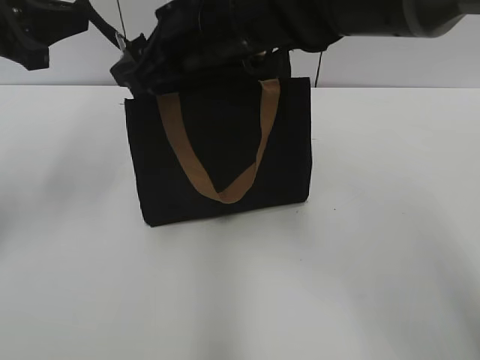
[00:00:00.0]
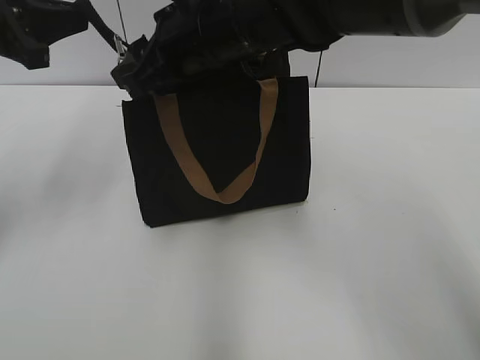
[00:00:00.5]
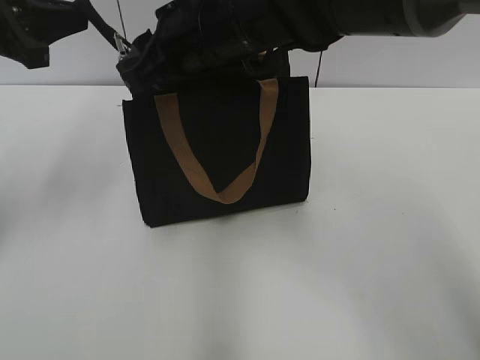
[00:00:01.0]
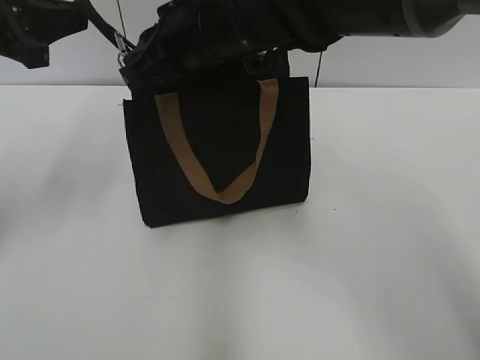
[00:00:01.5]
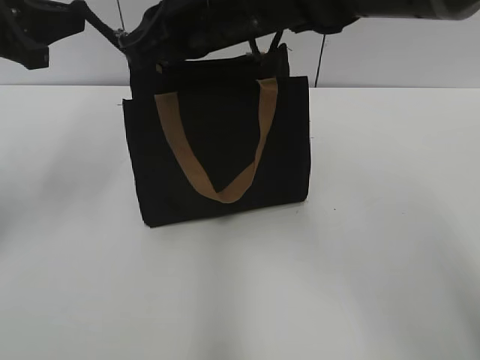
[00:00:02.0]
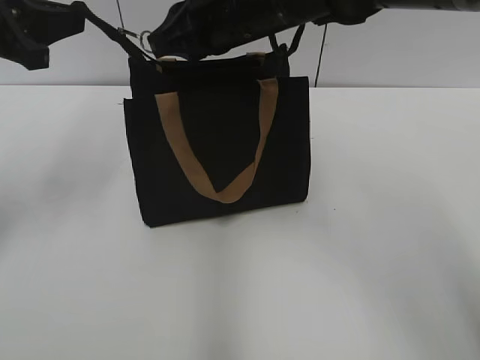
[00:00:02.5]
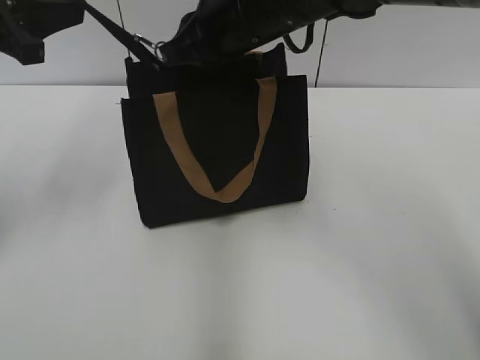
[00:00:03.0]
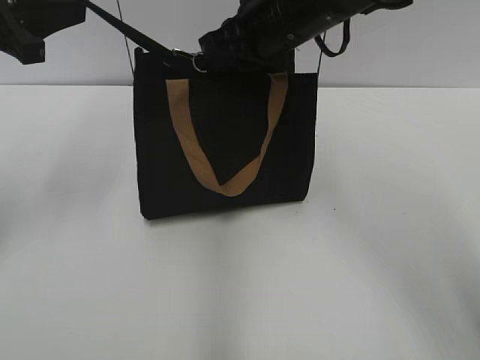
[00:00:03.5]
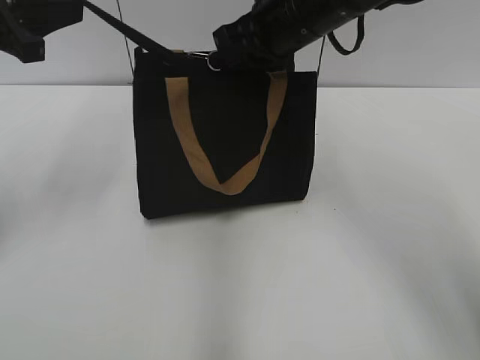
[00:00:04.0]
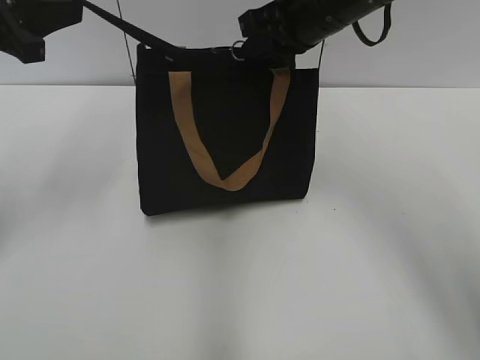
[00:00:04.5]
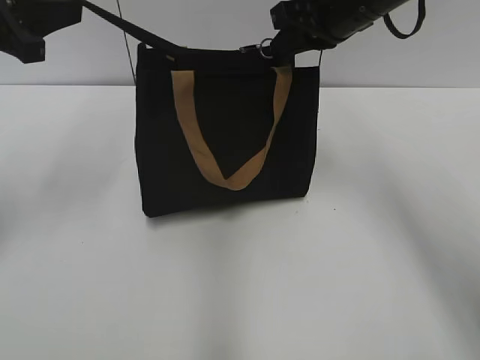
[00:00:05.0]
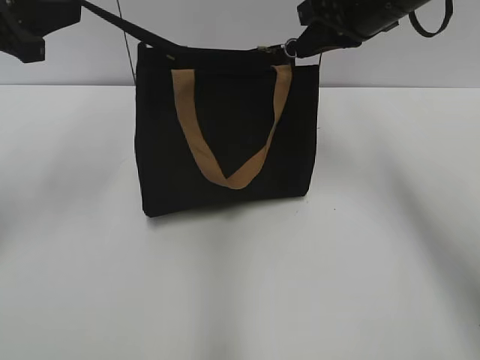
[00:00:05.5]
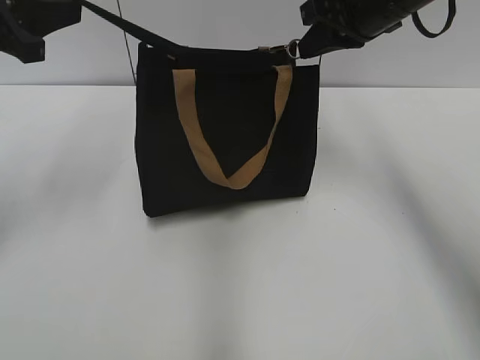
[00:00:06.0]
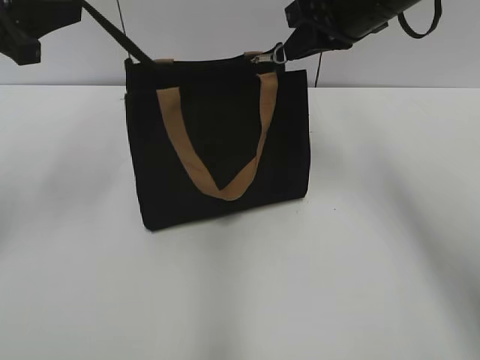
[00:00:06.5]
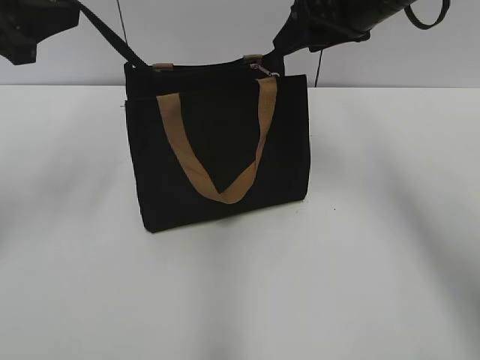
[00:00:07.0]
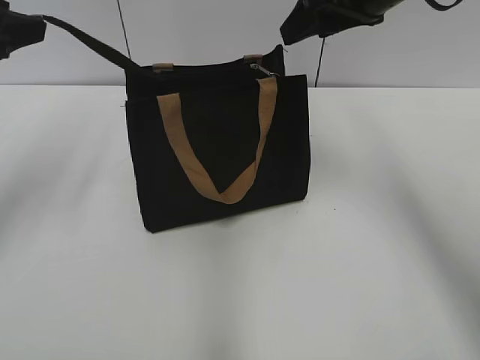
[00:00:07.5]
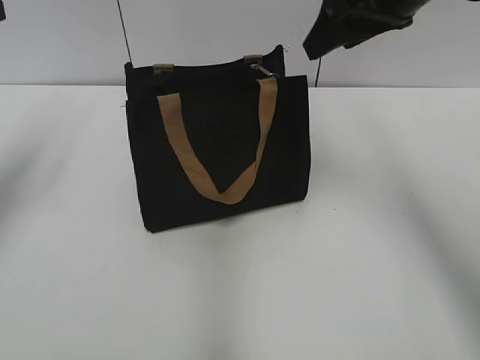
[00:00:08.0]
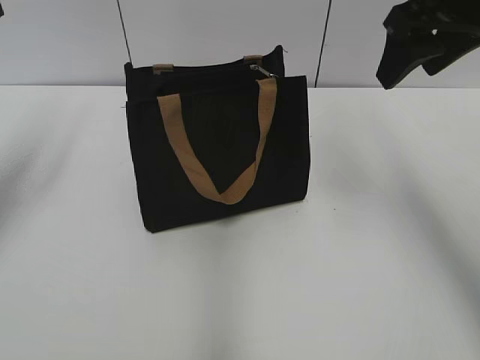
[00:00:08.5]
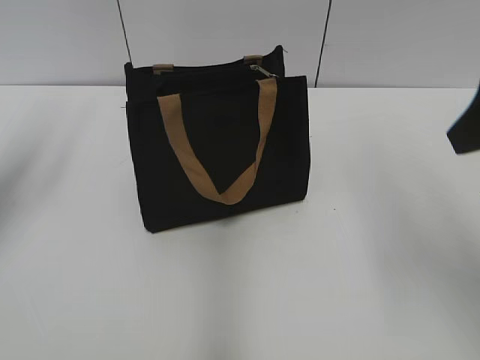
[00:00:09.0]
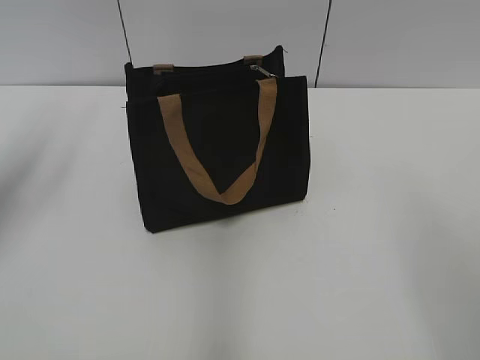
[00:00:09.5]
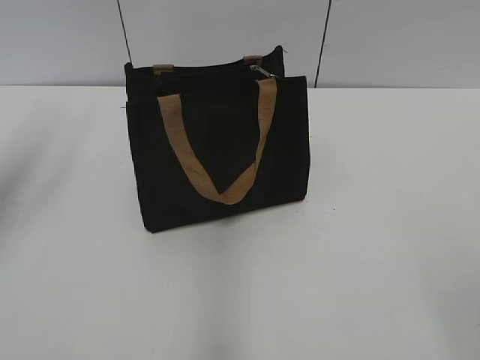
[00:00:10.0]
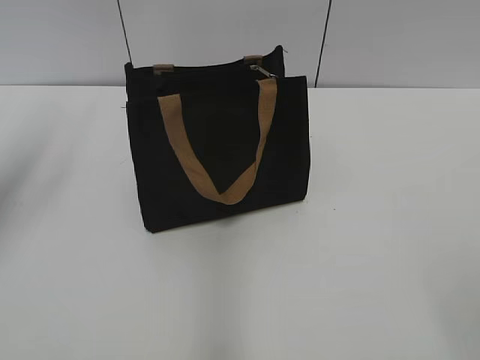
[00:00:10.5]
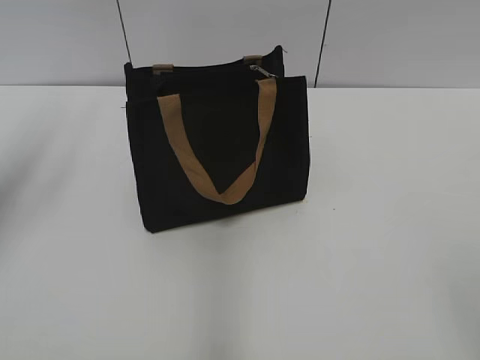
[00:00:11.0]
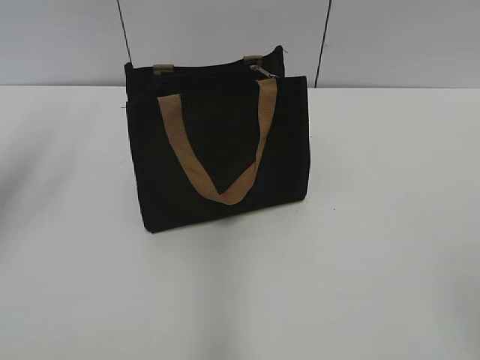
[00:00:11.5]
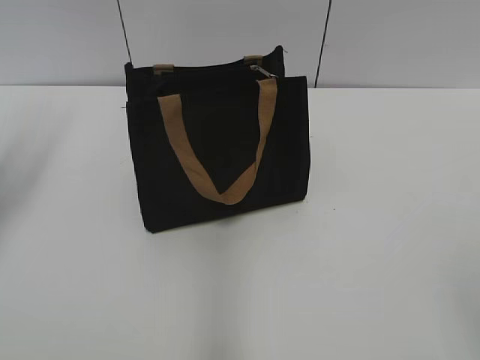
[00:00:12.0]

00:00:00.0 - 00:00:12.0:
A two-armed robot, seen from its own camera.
Step, 00:00:00.0 - 00:00:06.5: Zip up the bag with your right hand.
Step, 00:00:07.0 - 00:00:07.5: Grab the zipper with your left hand.
00:00:00.0 - 00:00:02.0: The right gripper closes up.
00:00:02.0 - 00:00:04.0: The right gripper travels to the right by approximately 10 cm.
00:00:04.0 - 00:00:06.0: The right gripper is displaced to the right by some 10 cm.
00:00:06.0 - 00:00:08.0: The left gripper opens; the right gripper shifts by approximately 5 cm, and opens.
00:00:08.0 - 00:00:10.0: The right gripper travels backward by roughly 35 cm.

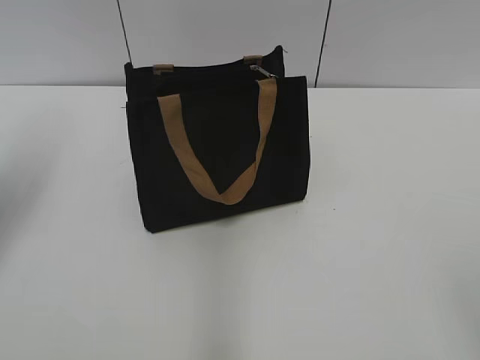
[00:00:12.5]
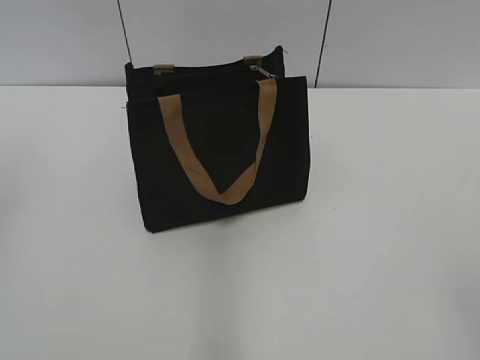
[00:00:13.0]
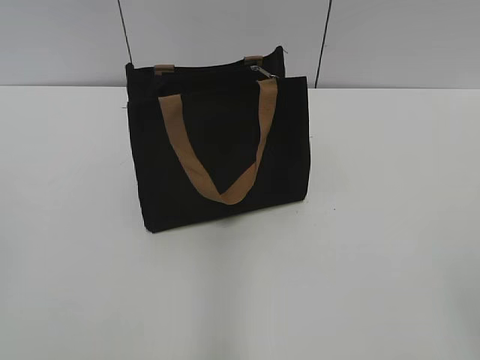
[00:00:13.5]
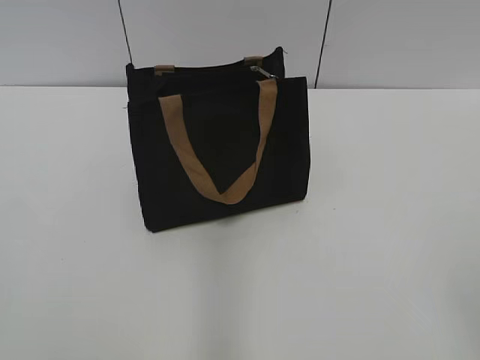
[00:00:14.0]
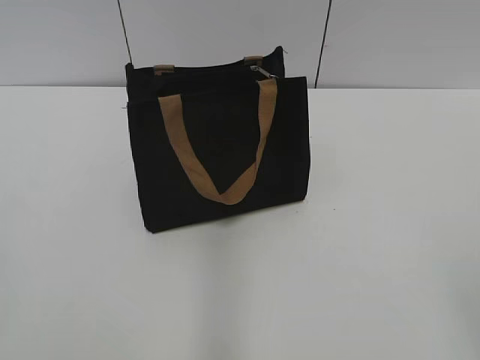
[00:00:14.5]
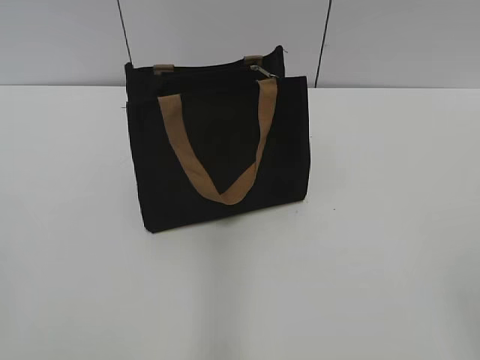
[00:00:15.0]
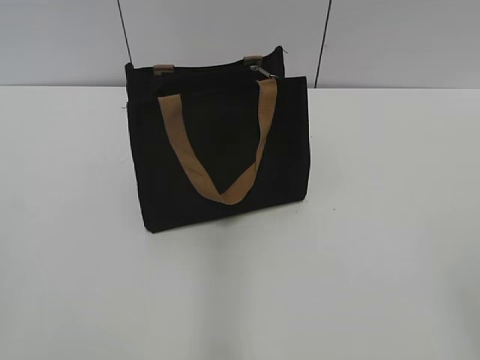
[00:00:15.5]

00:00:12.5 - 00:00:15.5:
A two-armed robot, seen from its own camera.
00:00:12.5 - 00:00:14.0: The left gripper heads backward, covering approximately 30 cm.

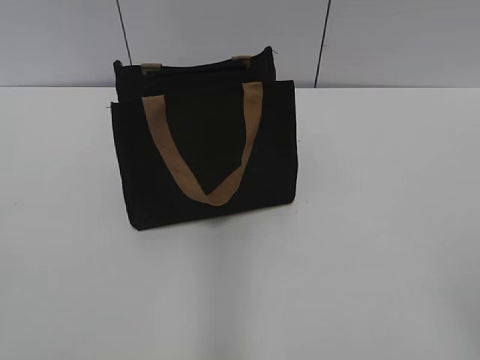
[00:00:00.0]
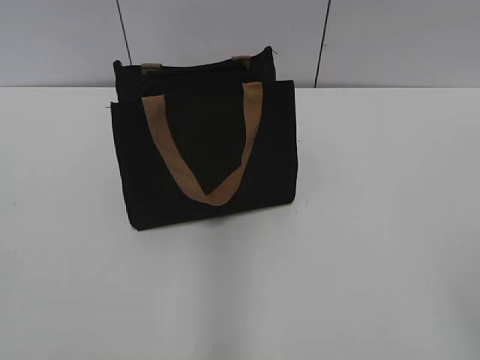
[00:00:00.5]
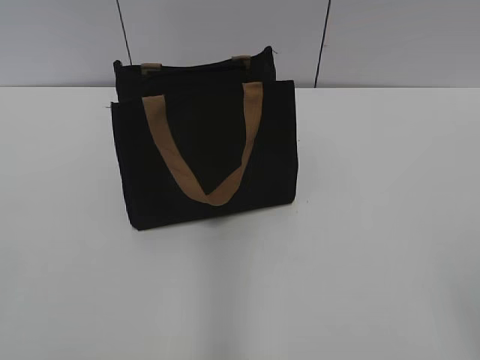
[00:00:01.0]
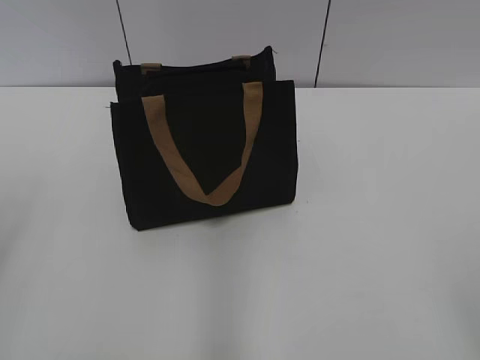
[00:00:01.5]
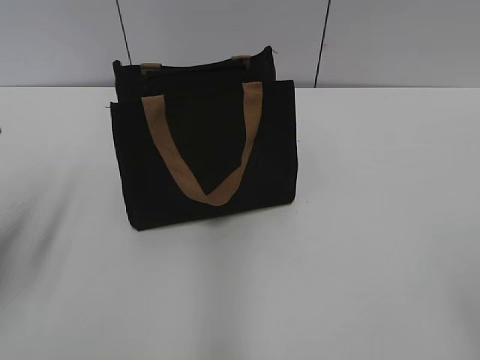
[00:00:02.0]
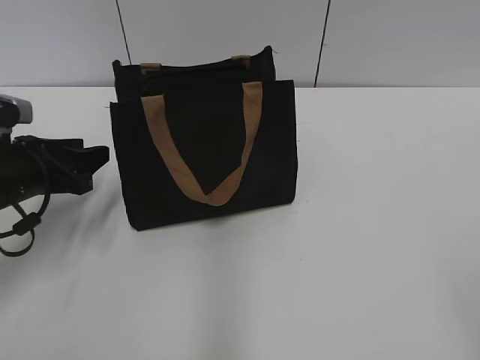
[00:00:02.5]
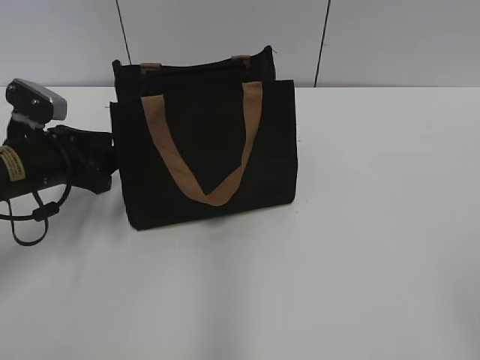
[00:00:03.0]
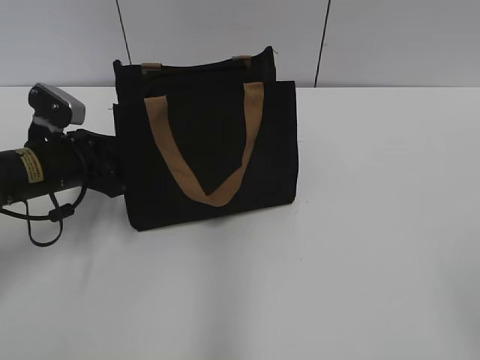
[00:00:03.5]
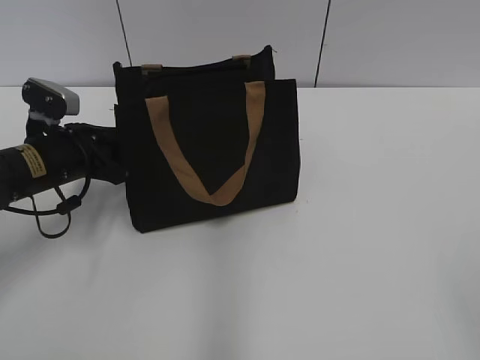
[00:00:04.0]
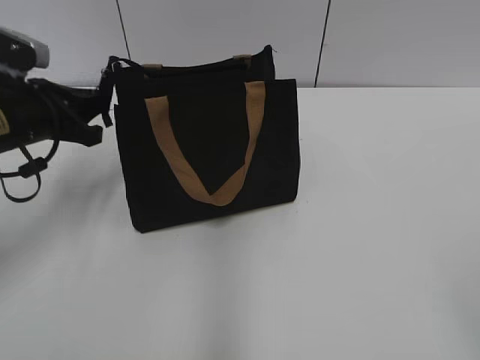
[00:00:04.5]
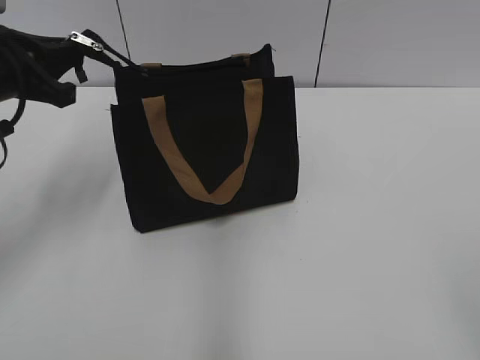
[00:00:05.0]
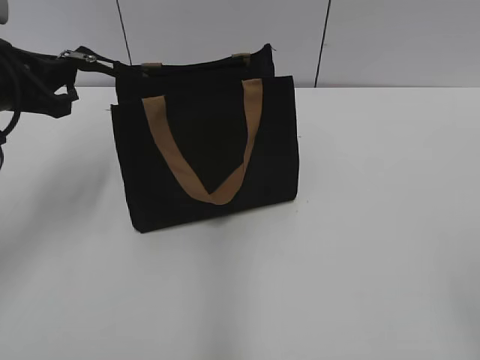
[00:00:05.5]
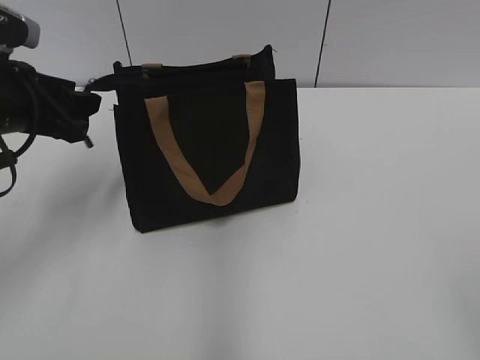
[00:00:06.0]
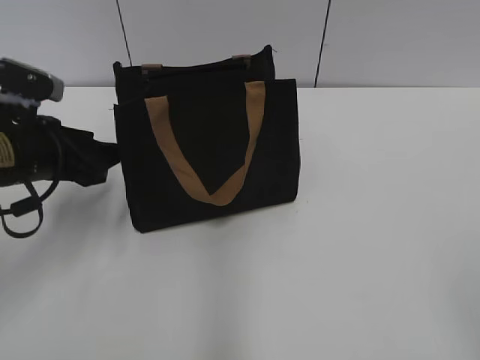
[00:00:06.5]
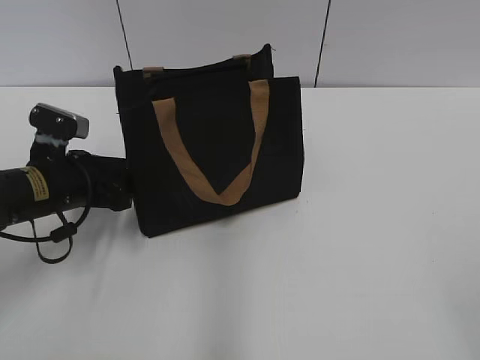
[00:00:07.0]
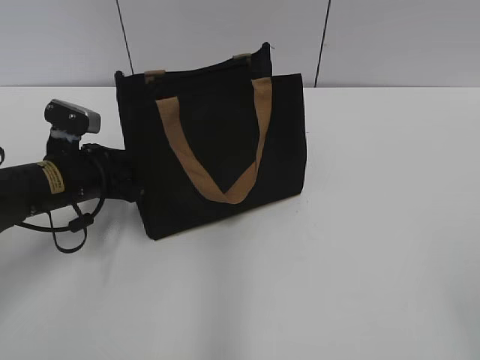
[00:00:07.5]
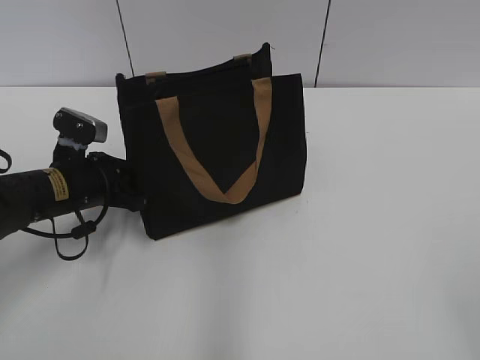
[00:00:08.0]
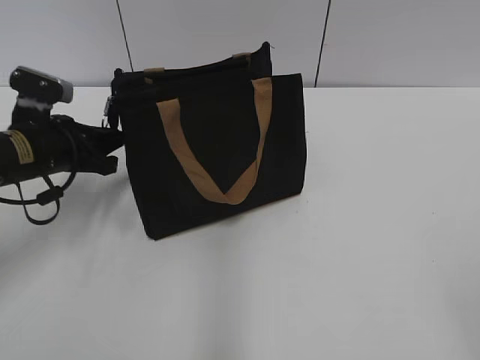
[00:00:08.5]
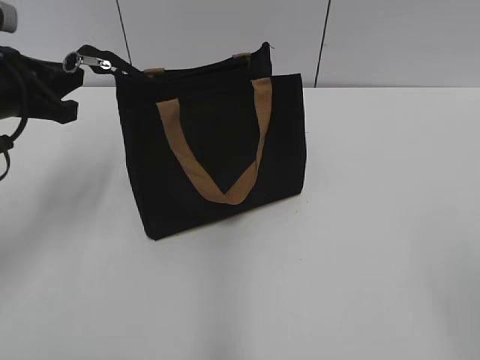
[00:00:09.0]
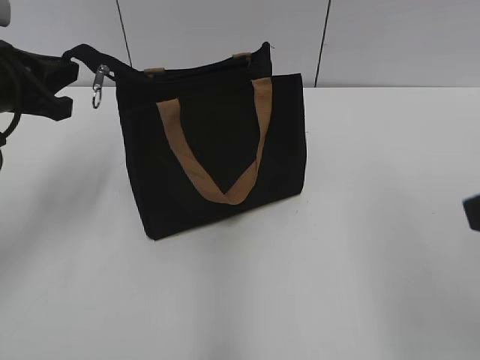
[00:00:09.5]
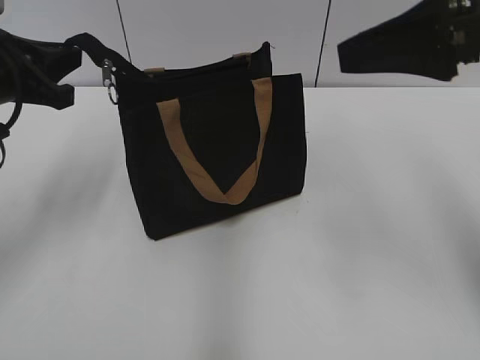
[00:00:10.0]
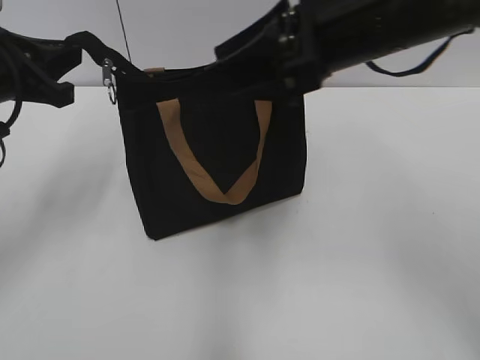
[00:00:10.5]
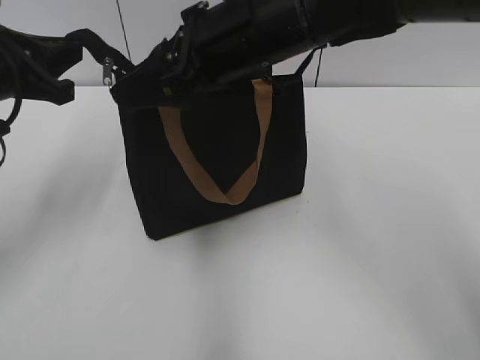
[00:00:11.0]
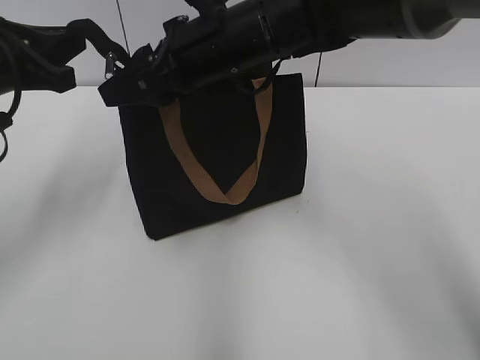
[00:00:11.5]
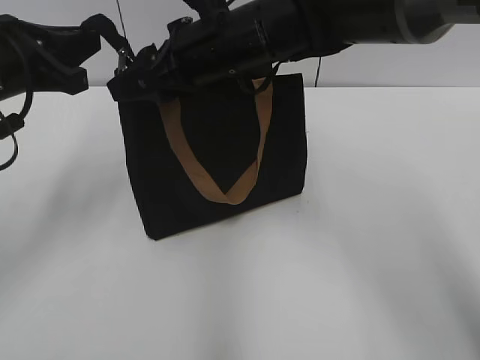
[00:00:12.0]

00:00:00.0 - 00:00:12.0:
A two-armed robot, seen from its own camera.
00:00:02.0 - 00:00:04.0: The left gripper shifts approximately 20 cm forward, downward and to the right.
00:00:04.0 - 00:00:06.0: The left gripper travels upward by about 10 cm.
00:00:06.0 - 00:00:08.0: The left gripper moves downward, roughly 15 cm, and closes its fingers.
00:00:08.0 - 00:00:10.0: The right gripper travels forward by roughly 25 cm. Meanwhile the left gripper moves upward, about 15 cm.
00:00:10.0 - 00:00:12.0: The right gripper travels to the left, forward and downward by about 25 cm.
